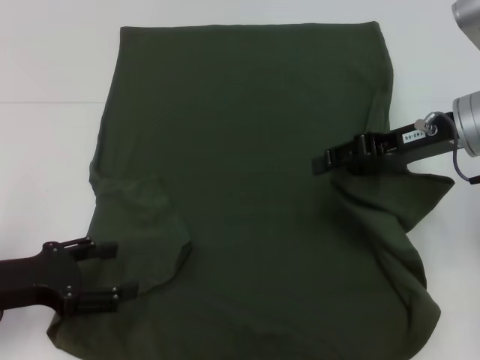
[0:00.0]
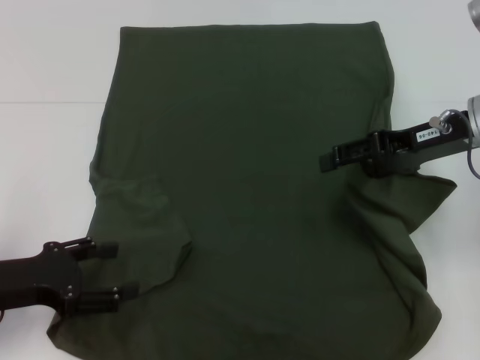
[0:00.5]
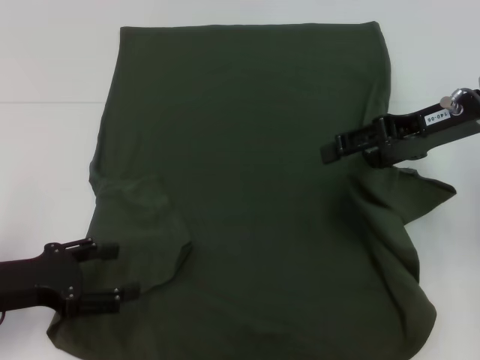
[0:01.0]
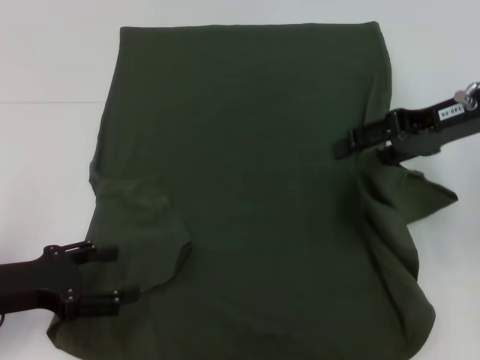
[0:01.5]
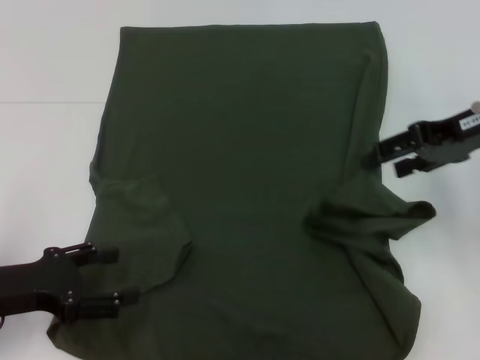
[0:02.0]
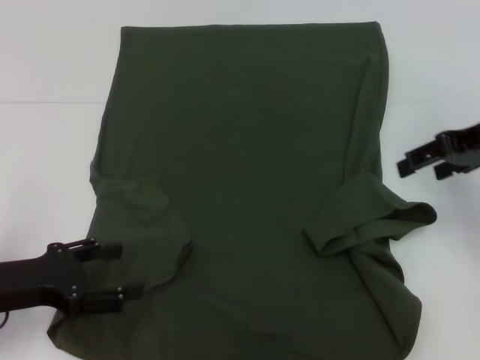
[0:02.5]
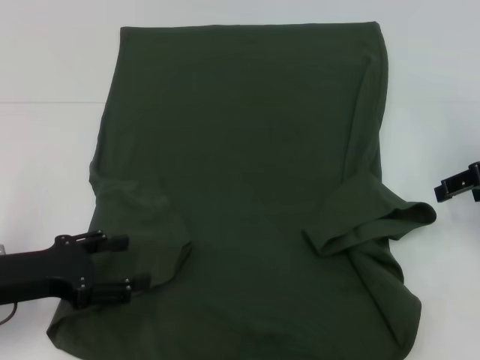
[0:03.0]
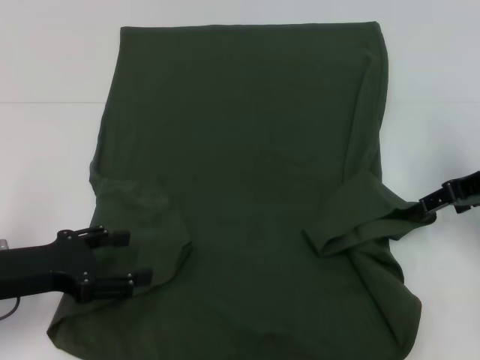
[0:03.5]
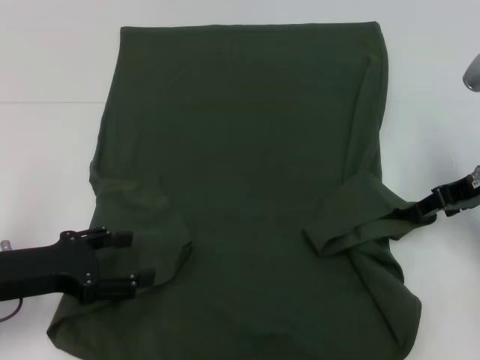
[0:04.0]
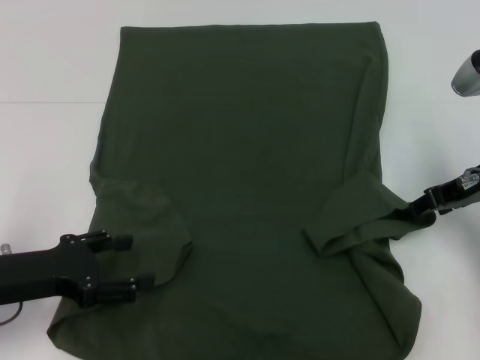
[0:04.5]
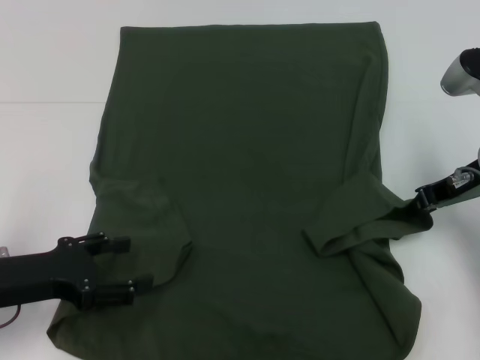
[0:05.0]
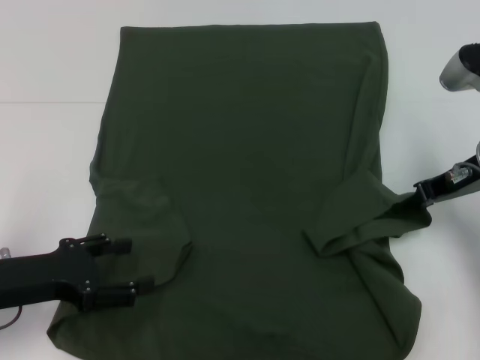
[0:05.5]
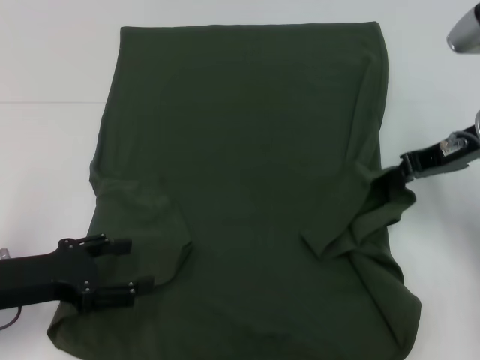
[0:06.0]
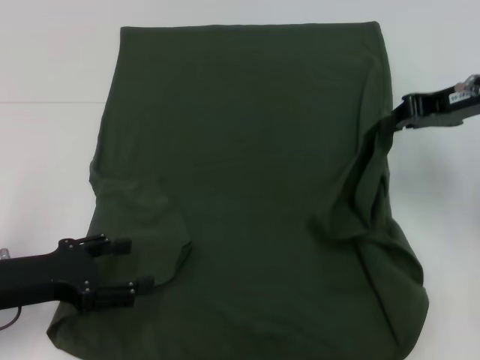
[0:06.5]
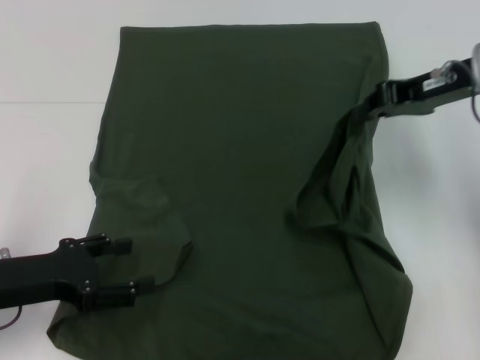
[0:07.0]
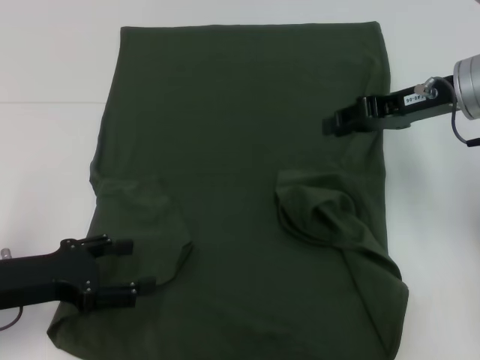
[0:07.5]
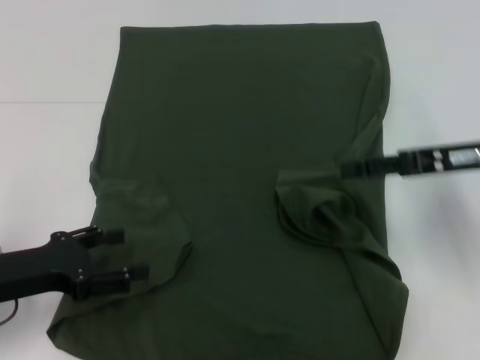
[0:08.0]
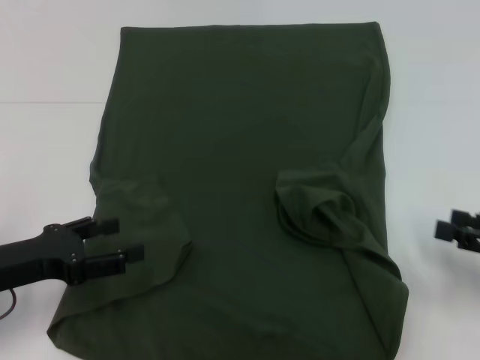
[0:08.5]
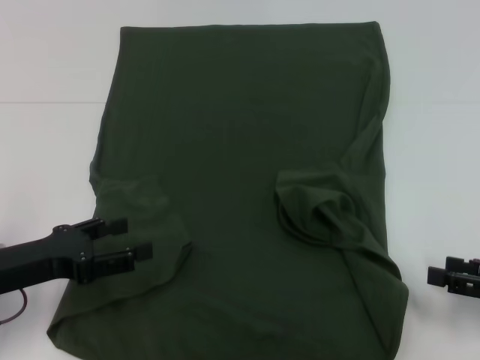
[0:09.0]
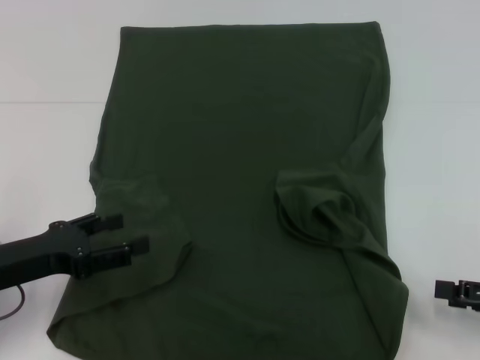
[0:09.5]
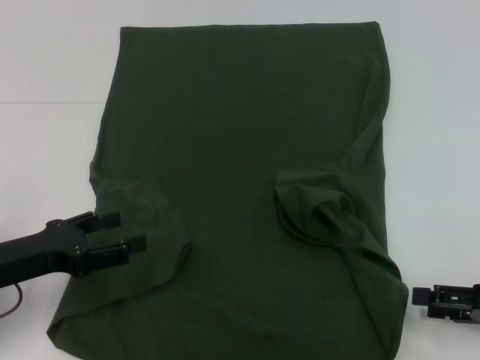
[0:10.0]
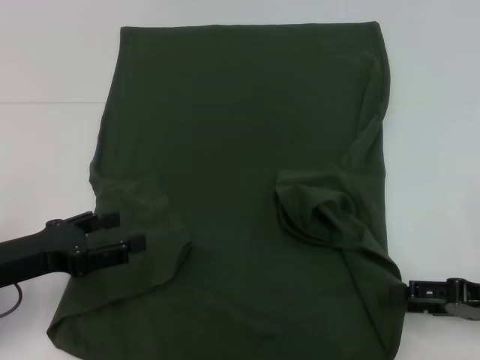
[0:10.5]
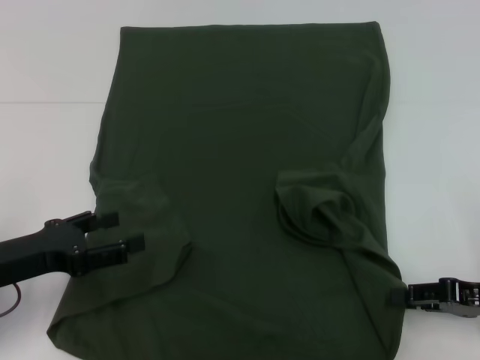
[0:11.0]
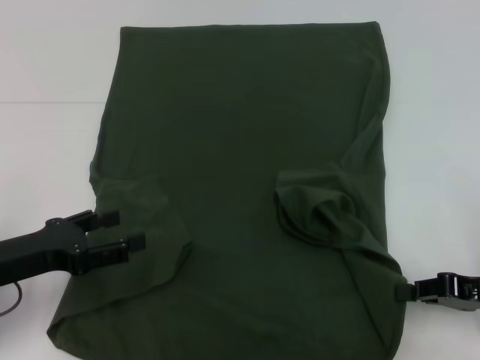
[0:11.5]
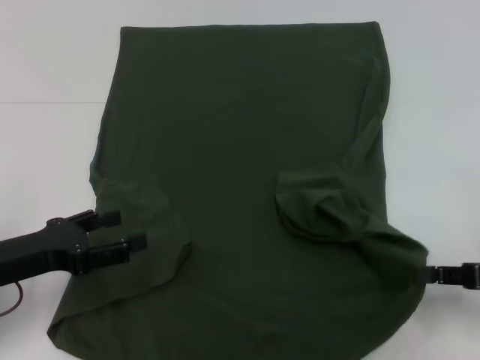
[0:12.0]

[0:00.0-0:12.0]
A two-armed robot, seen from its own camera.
Step, 0:00.0 to 0:07.5: Fold the bottom right sleeve with your right hand.
0:00.0 to 0:02.0: The right gripper changes place by about 5 cm, and opens.
0:02.0 to 0:04.0: The right gripper shifts some 5 cm downward.
0:04.0 to 0:06.0: The right gripper closes its fingers.
0:06.0 to 0:08.0: The right gripper opens its fingers.
0:08.0 to 0:10.0: The right gripper travels backward, downward and to the right by about 15 cm.
0:10.0 to 0:12.0: The right gripper closes its fingers.

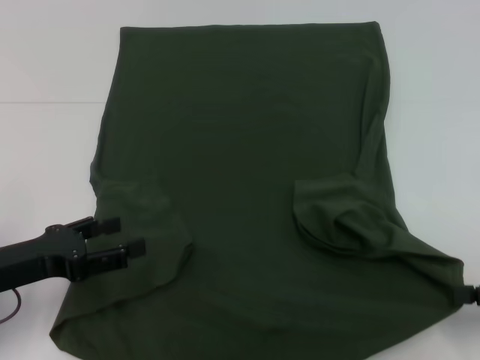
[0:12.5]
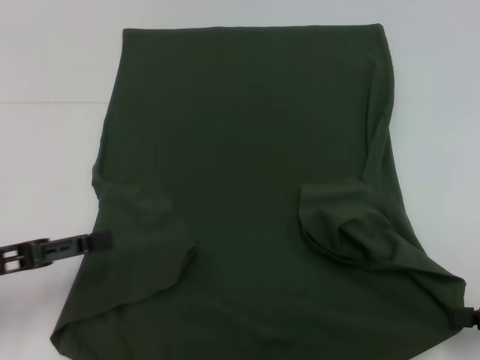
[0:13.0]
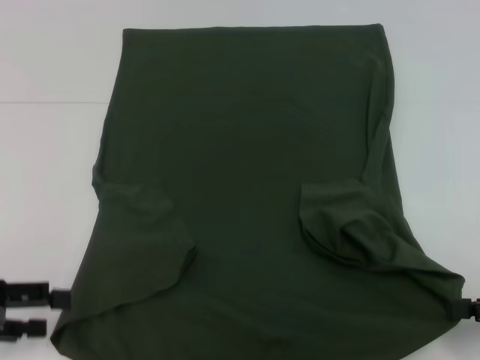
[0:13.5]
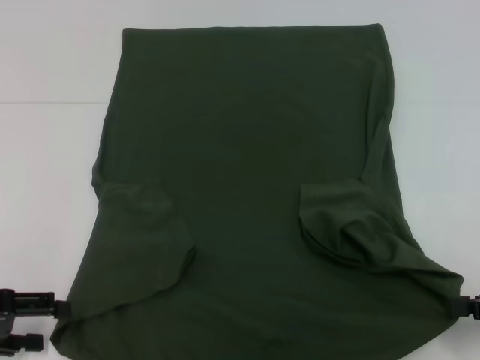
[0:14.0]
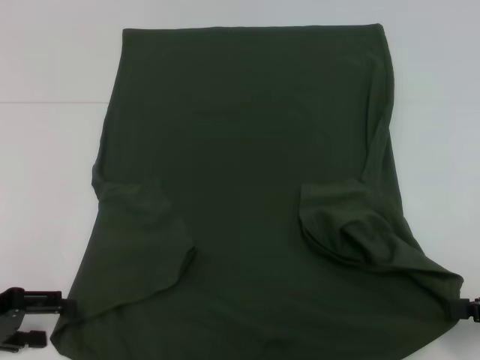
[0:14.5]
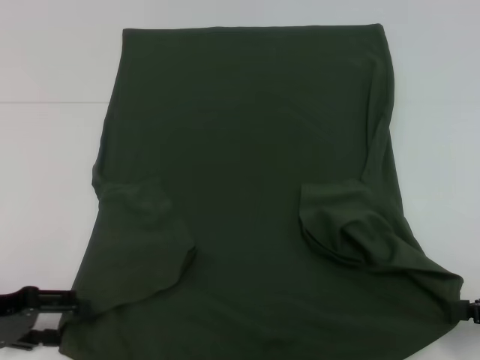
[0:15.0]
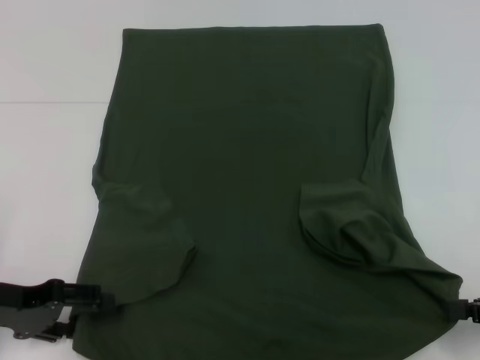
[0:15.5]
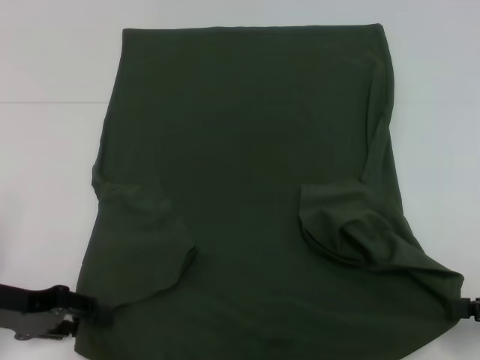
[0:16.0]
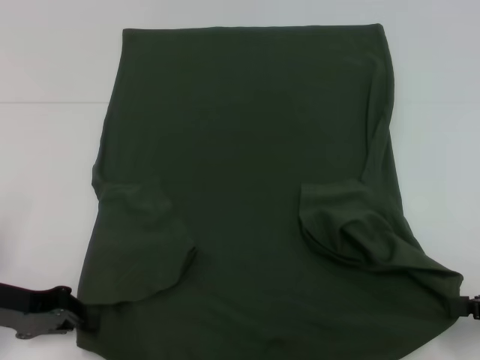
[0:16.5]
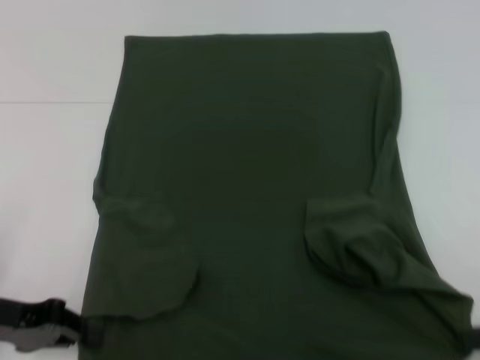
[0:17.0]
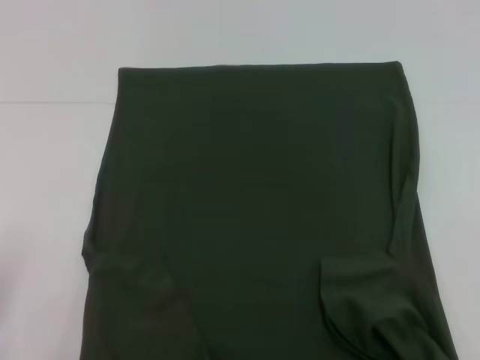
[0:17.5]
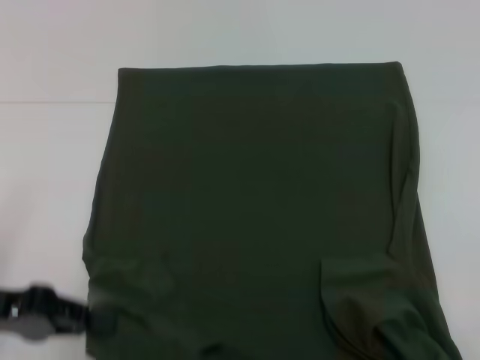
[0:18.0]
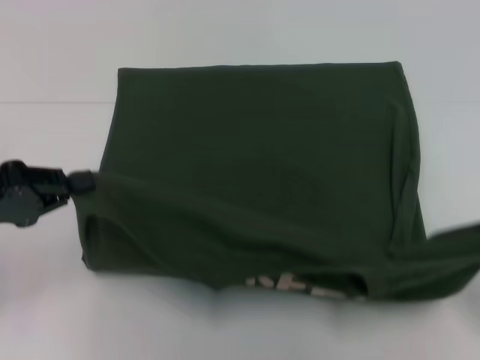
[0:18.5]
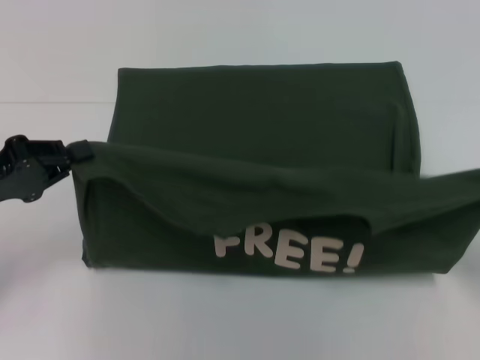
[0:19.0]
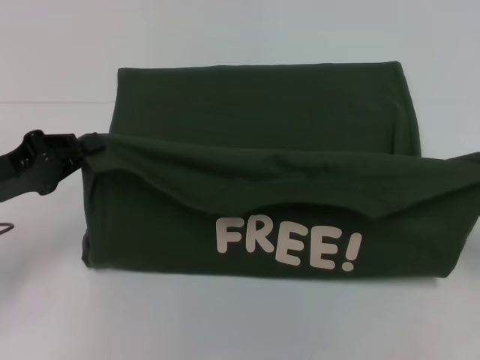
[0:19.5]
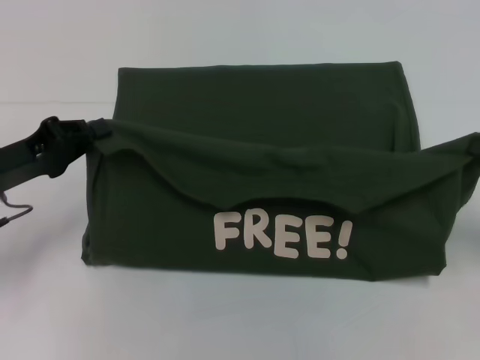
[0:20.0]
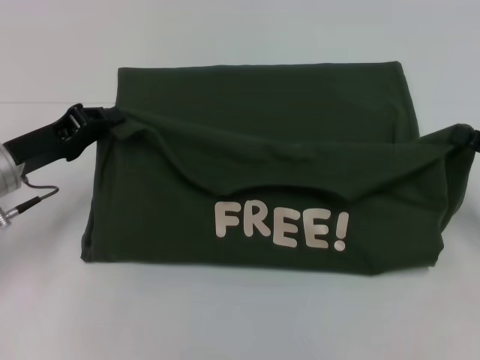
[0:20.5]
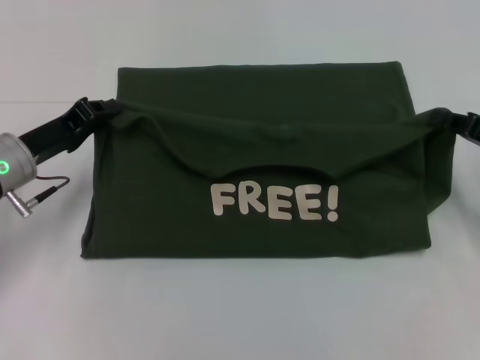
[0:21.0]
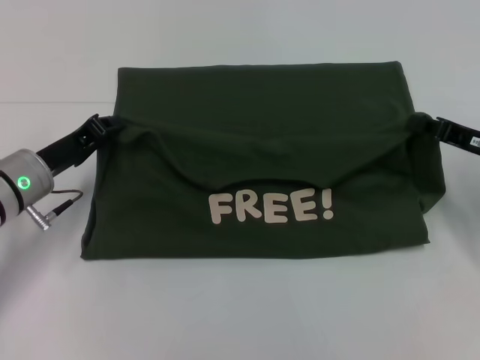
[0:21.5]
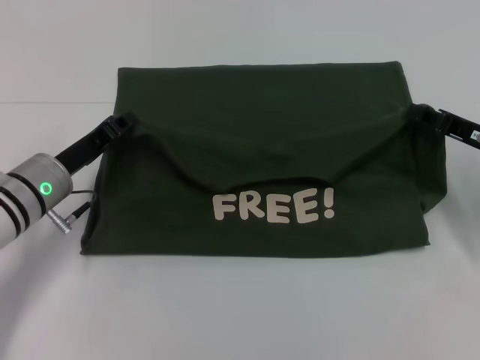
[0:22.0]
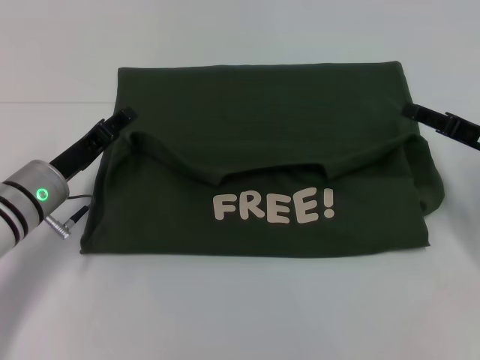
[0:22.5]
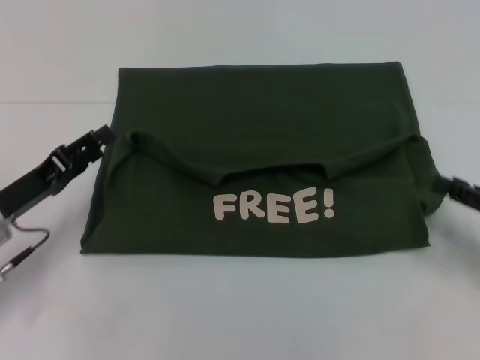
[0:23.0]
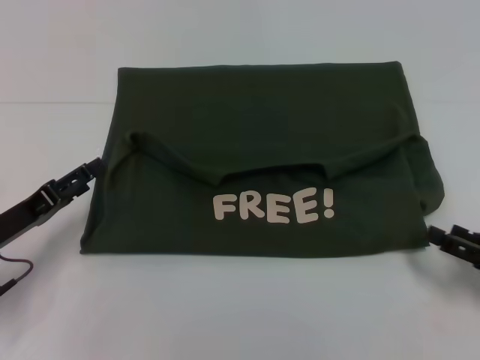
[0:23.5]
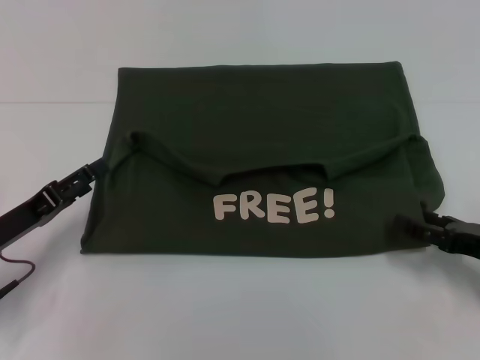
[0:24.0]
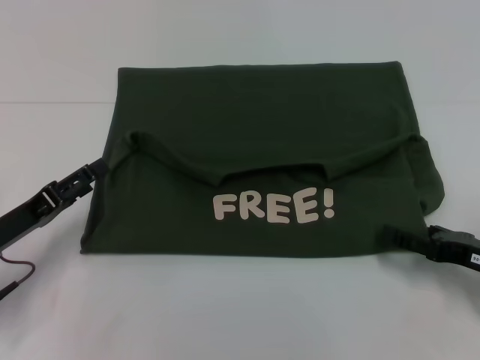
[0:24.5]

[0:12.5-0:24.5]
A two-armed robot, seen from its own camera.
Step, 0:14.5 to 0:16.5: Grab the bottom left corner with your left hand.
Step, 0:17.0 to 0:22.0: Fold the clothes with your left hand.
Step, 0:17.0 to 0:22.0: Fold the clothes with your right hand.
0:12.5 to 0:14.5: The left gripper travels to the left by approximately 5 cm.
0:14.5 to 0:16.5: The left gripper closes.
0:16.5 to 0:18.5: The left gripper is displaced upward by about 5 cm. The right gripper moves roughly 5 cm.
0:18.5 to 0:20.5: The left gripper travels forward and to the right by some 10 cm, while the right gripper is displaced forward by approximately 10 cm.
0:20.5 to 0:22.5: The right gripper ends up some 5 cm from where it was, and opens its fingers. The left gripper ends up some 5 cm from where it was, and opens up.
0:22.5 to 0:24.5: The right gripper travels backward and downward by some 10 cm. Meanwhile the left gripper goes some 10 cm backward and to the left, and opens its fingers.

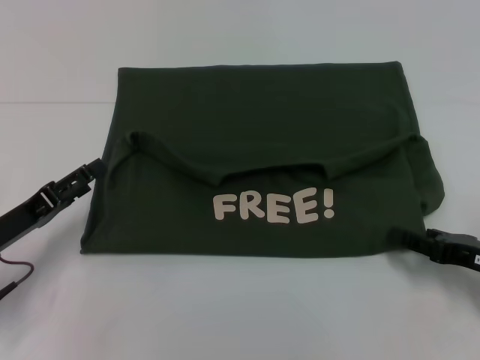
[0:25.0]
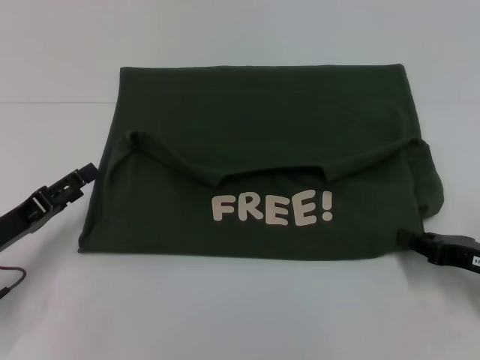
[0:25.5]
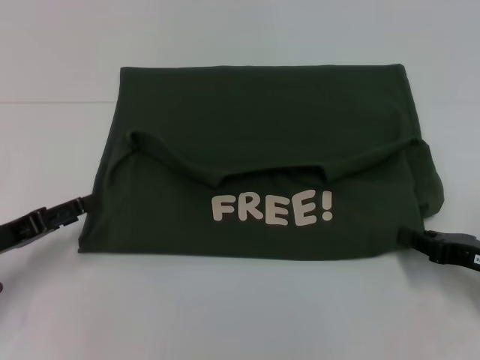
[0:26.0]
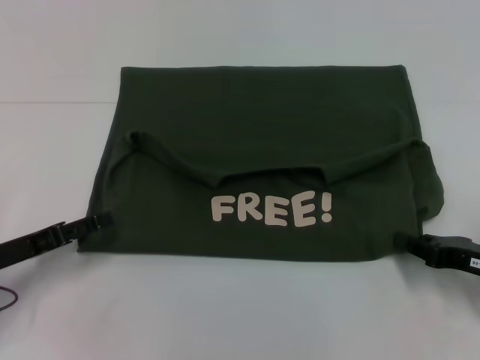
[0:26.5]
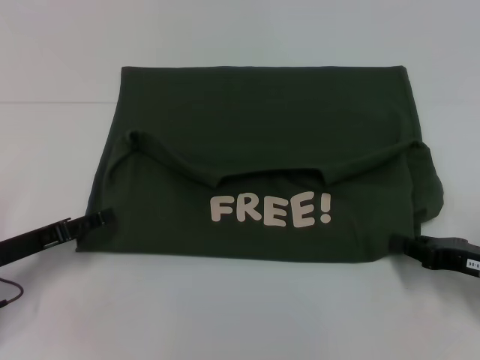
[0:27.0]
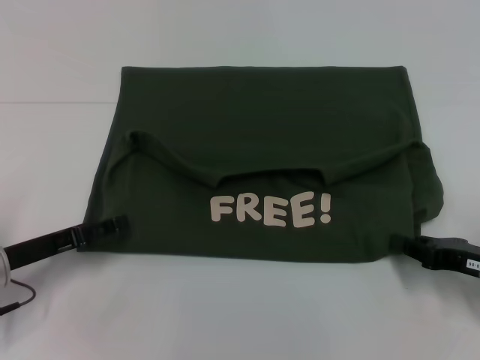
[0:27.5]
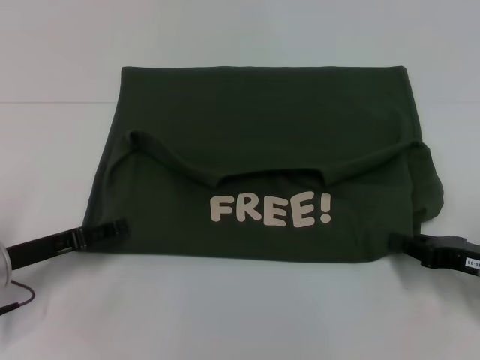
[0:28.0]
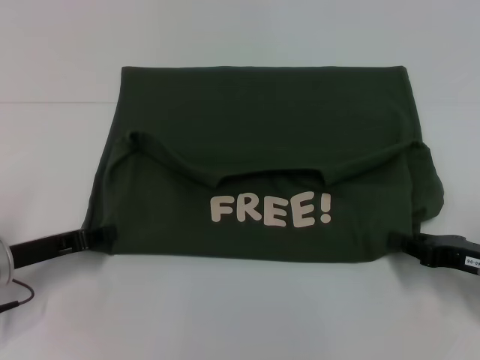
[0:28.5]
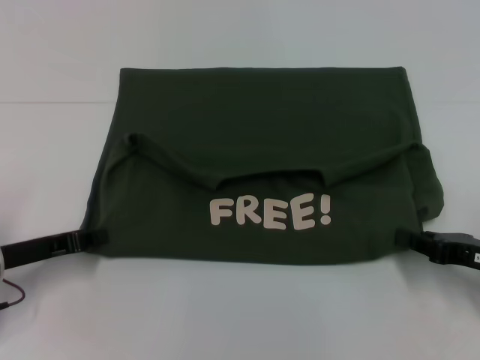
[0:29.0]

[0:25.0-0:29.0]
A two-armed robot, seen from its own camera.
0:25.0 to 0:27.0: The right gripper closes up.
0:27.0 to 0:29.0: The left gripper closes.
